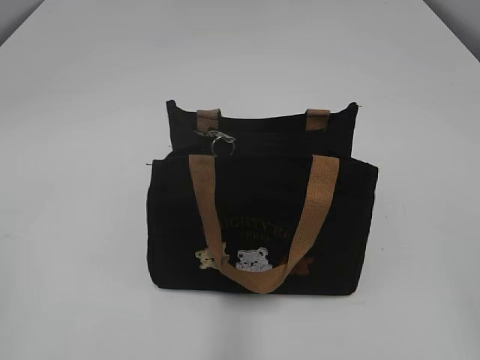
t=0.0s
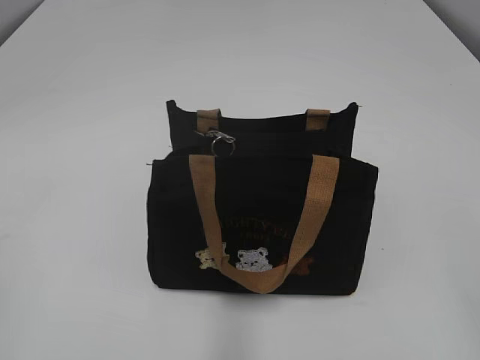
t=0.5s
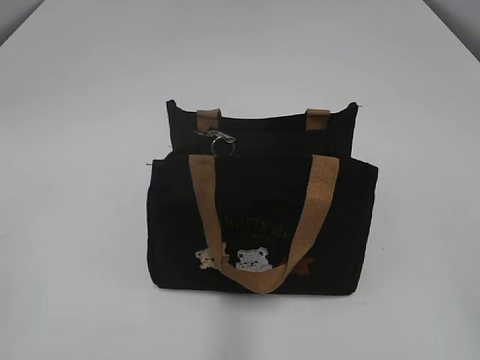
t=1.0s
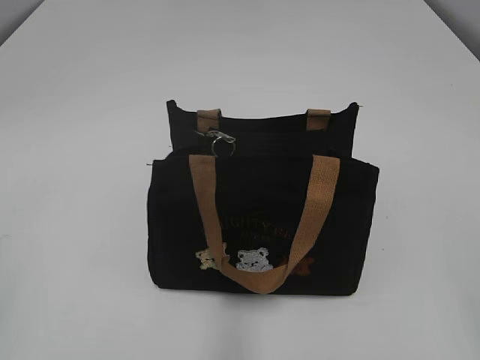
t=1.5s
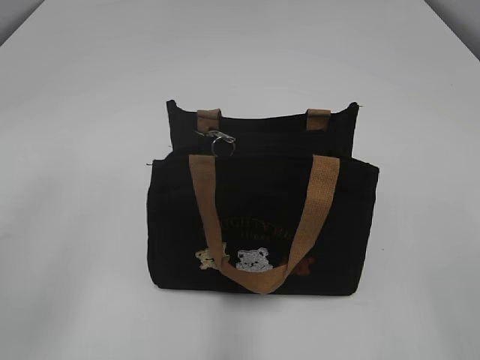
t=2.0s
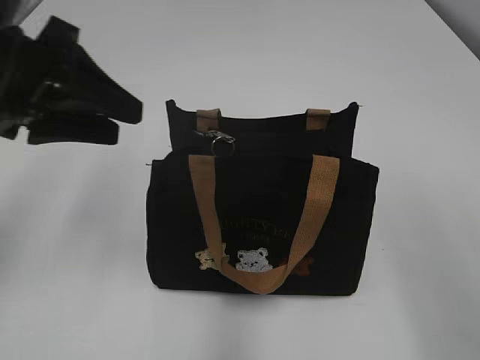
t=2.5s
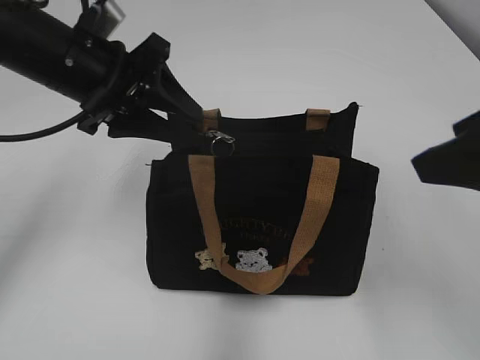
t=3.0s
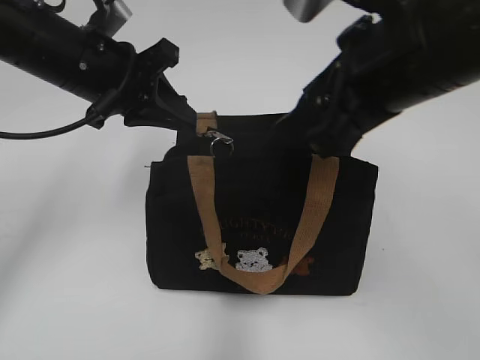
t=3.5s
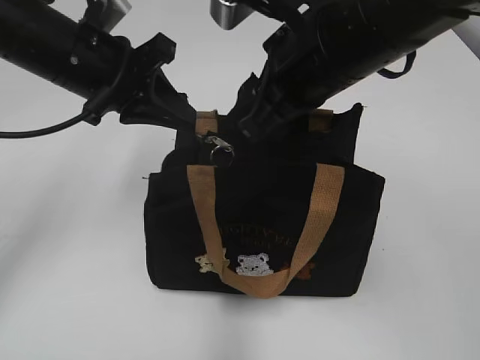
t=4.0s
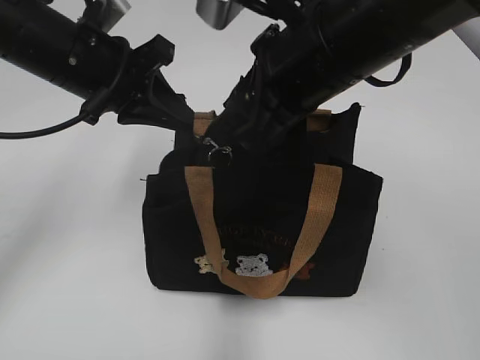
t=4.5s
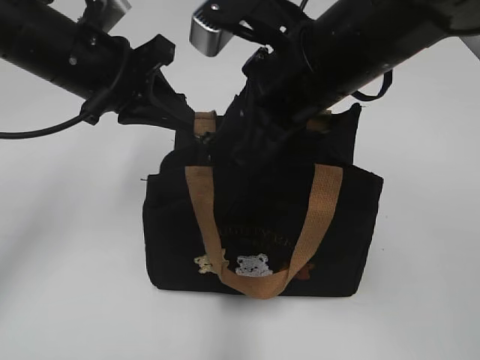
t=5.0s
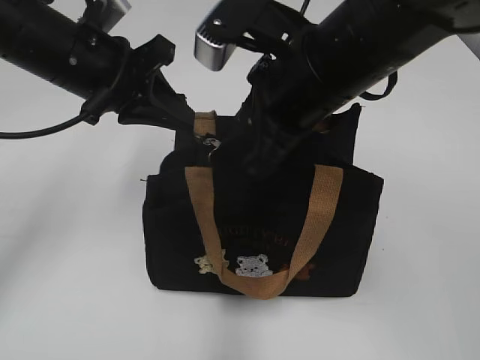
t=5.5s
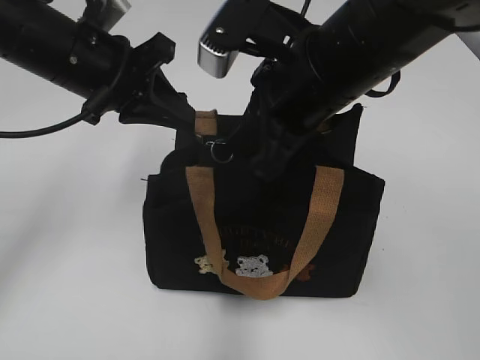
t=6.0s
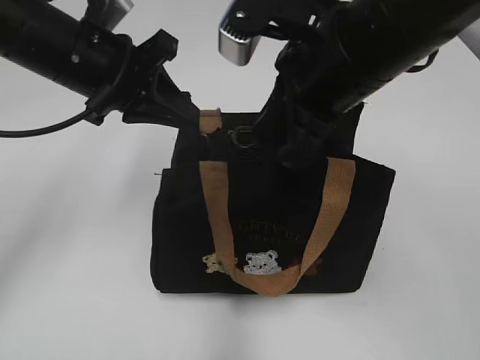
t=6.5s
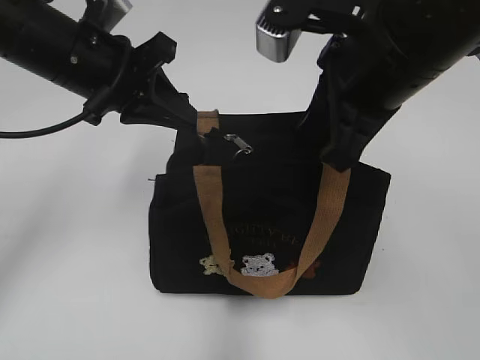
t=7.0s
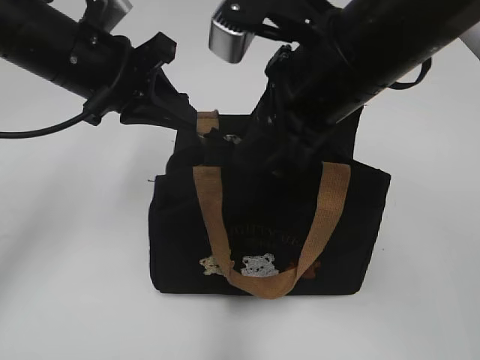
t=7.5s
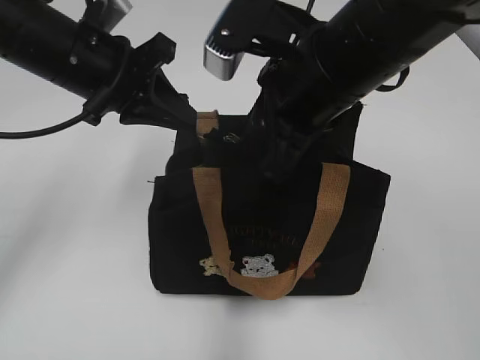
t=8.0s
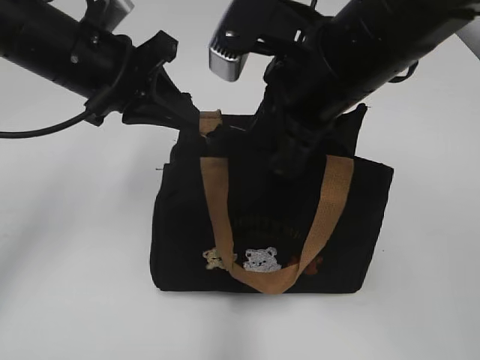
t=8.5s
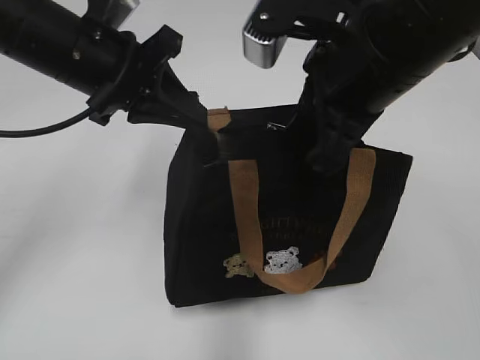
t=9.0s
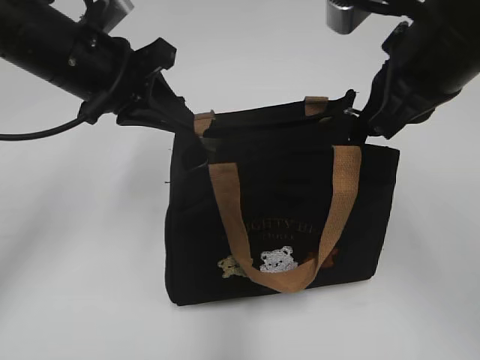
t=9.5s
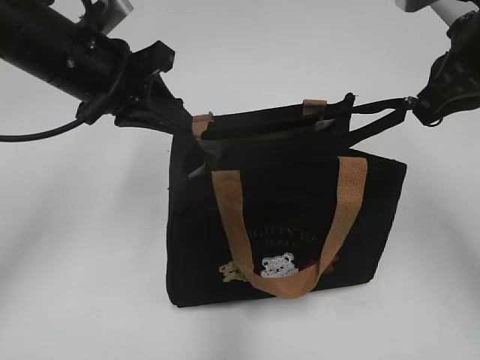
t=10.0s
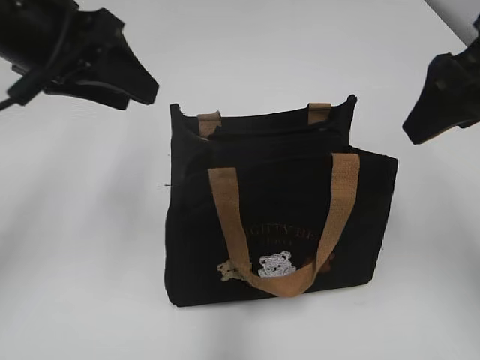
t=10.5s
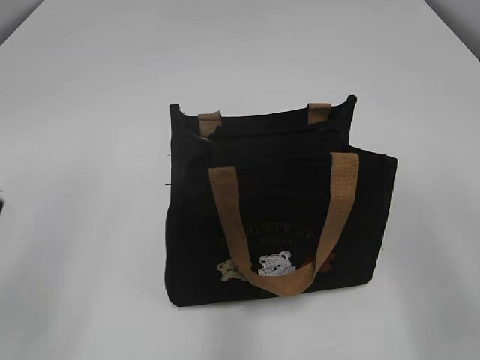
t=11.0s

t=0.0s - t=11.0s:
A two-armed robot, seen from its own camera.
Step, t=0.0s - t=10.0s: Pull open the zipper with your right hand.
t=2.0s - t=3.5s: The right gripper goes approximately 25 cm forward and to the left; the left gripper heads forward and to the right, covering approximately 25 cm, and closes.
t=3.5s - t=5.5s: The right gripper shifts approximately 5 cm to the left.
t=5.5s - t=7.5s: The right gripper closes, then opens again.
t=7.5s - t=9.0s: The right gripper closes up.
t=9.0s - t=11.0s: The left gripper moves backward and to the left, approximately 20 cm, and opens up. Meanwhile the right gripper moves to the right and backward, approximately 20 cm, and opens.

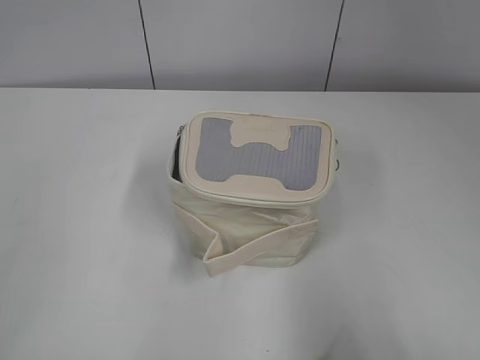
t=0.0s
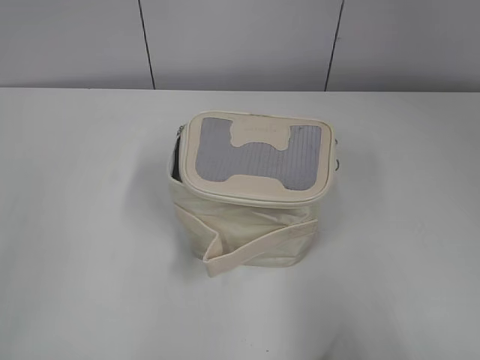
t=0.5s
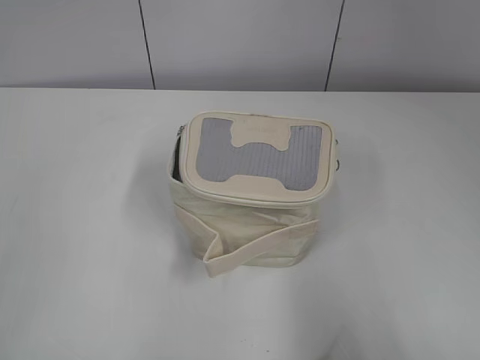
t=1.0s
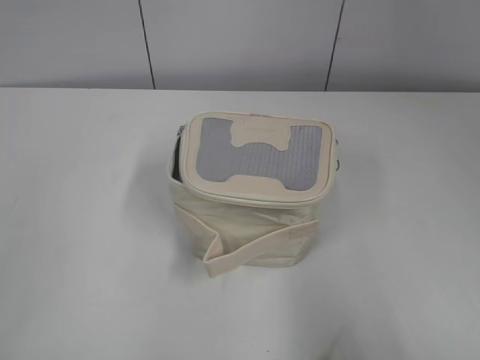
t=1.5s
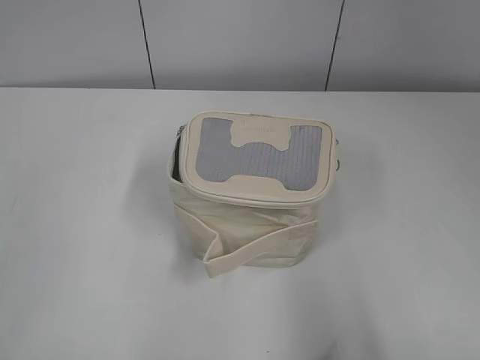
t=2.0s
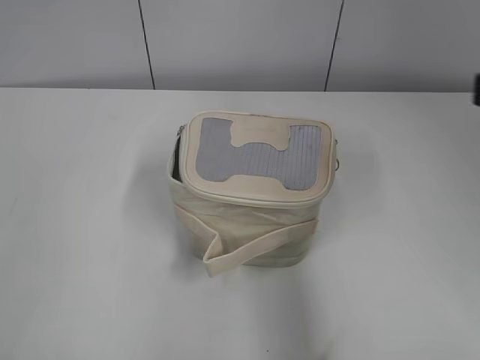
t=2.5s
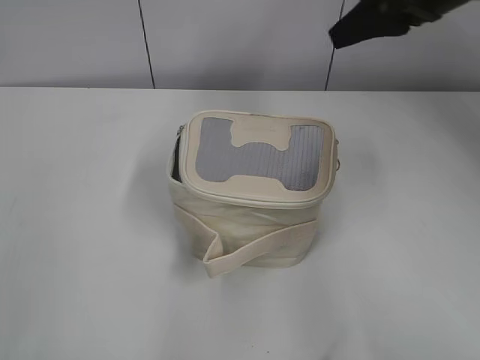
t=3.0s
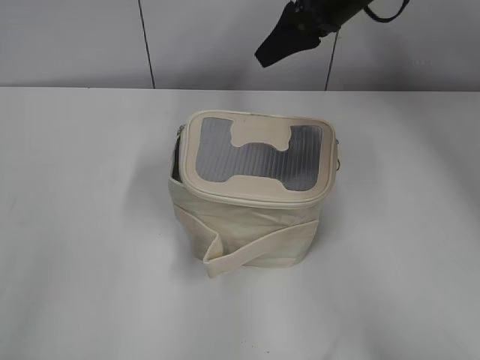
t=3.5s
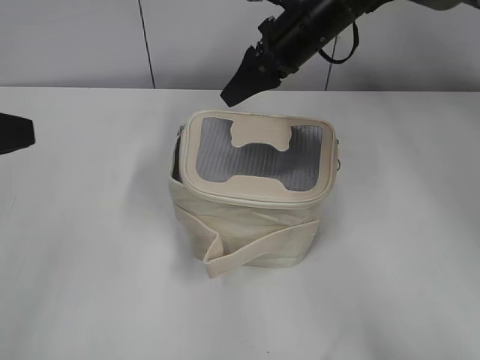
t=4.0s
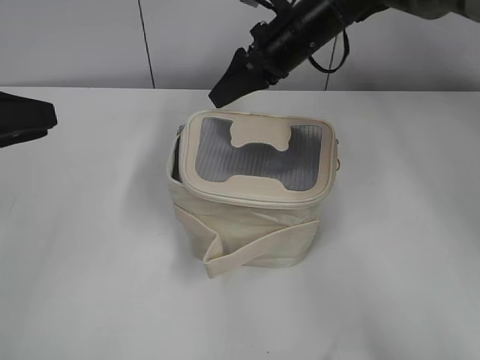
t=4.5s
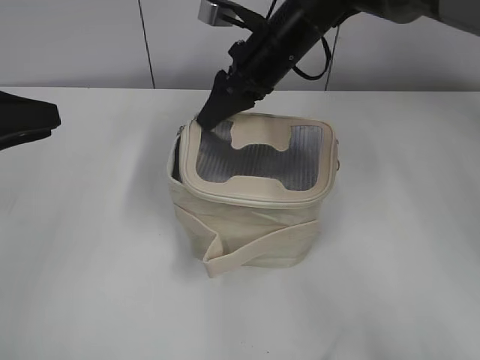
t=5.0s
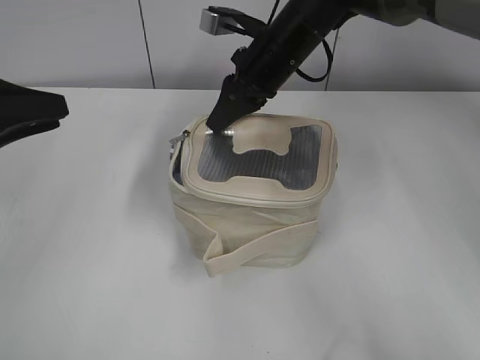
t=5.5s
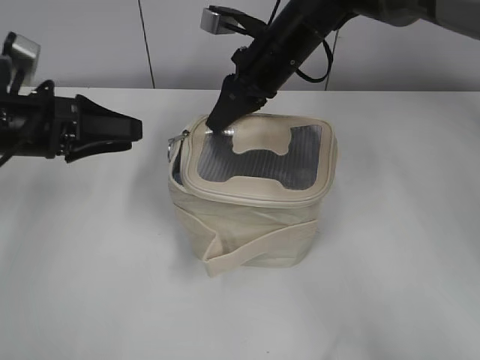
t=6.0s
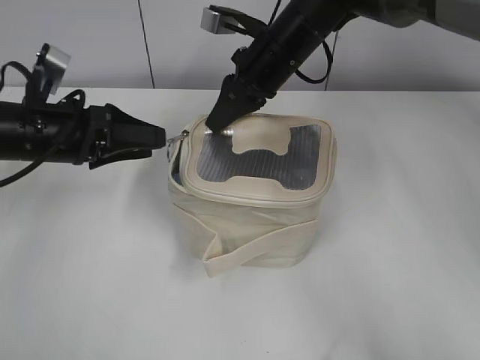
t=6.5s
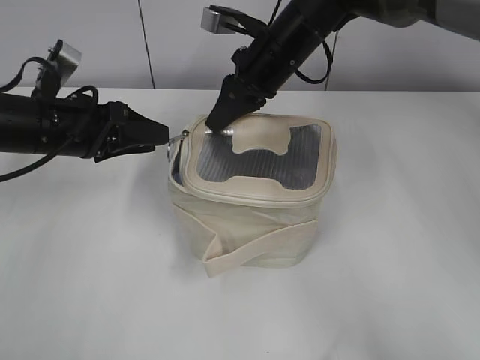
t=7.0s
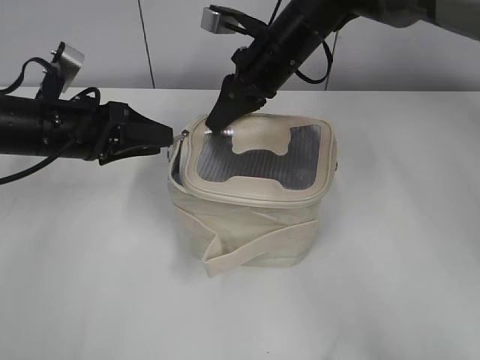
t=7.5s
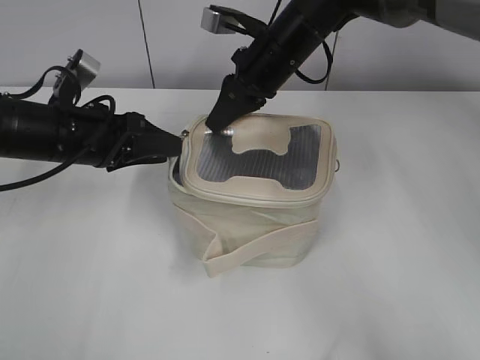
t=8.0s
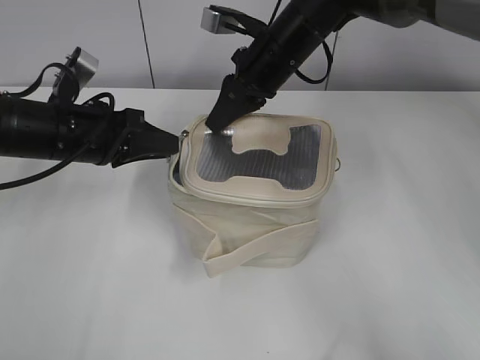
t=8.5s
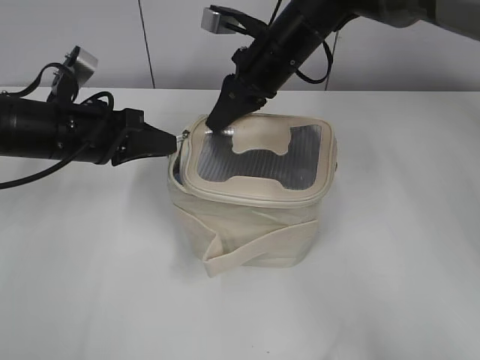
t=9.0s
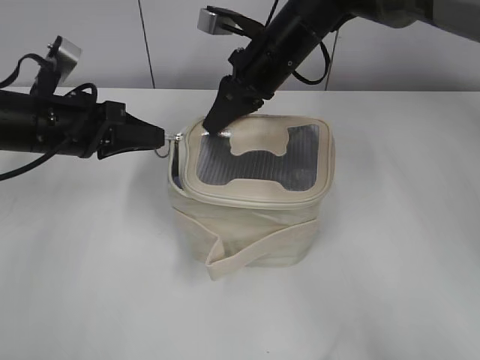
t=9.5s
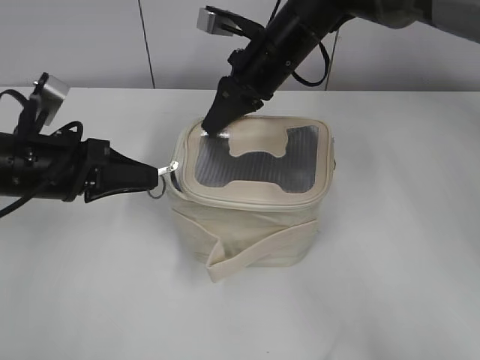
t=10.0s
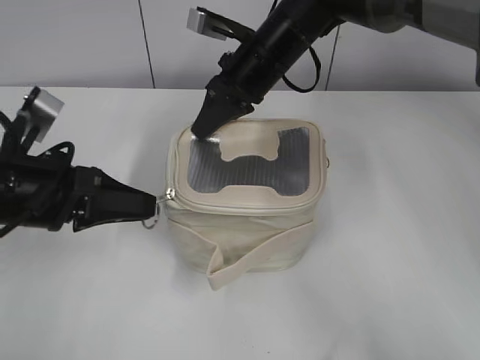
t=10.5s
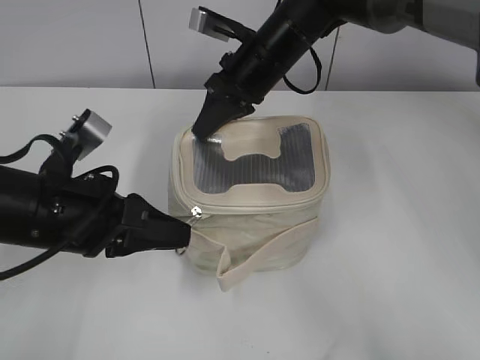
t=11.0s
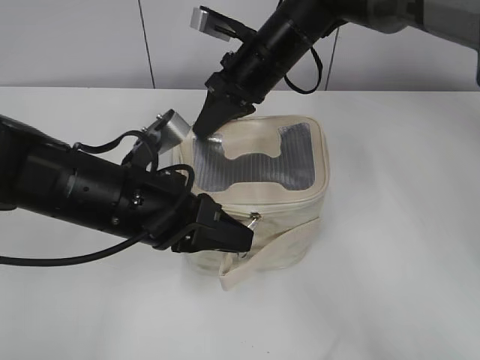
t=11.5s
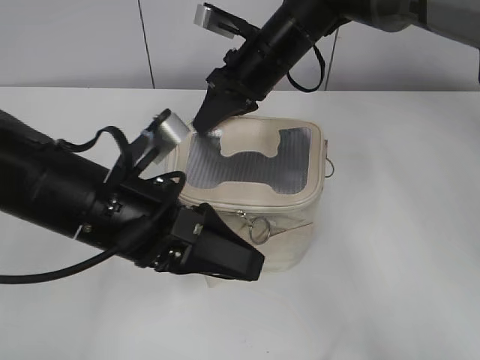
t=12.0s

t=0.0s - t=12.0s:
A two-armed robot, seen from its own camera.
Step, t=0.0s - t=11.5s: Zip up the bag with your left hand.
t=2.0s - t=4.0s: The left gripper is displaced forward by roughly 20 cm. Meanwhile the right gripper heads forward and to the left, covering some 50 cm.
t=4.0s - t=6.0s: The left gripper moves forward and downward, roughly 15 cm, and opens up. The right gripper closes its fingers.
t=6.0s - t=8.0s: The left gripper shifts roughly 5 cm to the right.
t=8.0s - t=10.0s: The left gripper closes.
t=10.0s - t=12.0s: The left gripper moves to the right and backward, roughly 10 cm, and opens.

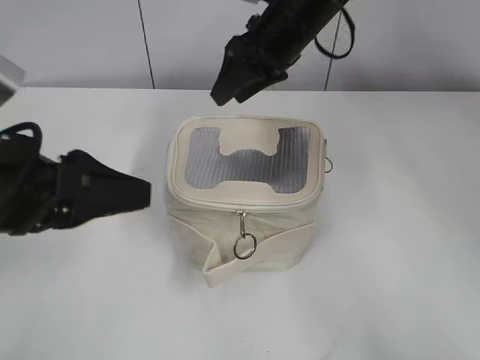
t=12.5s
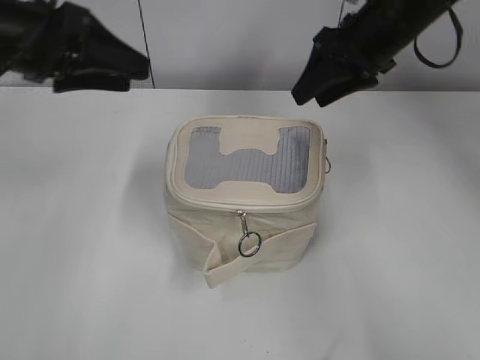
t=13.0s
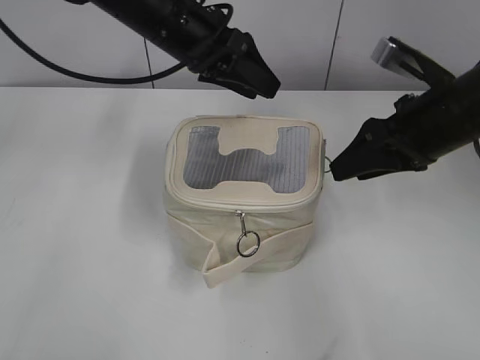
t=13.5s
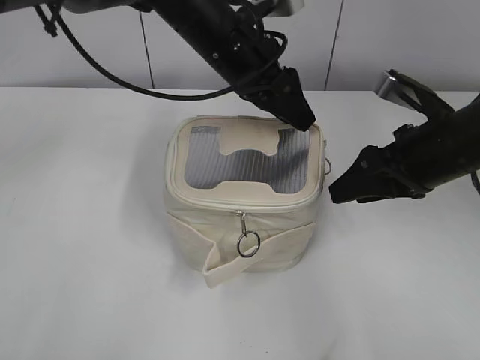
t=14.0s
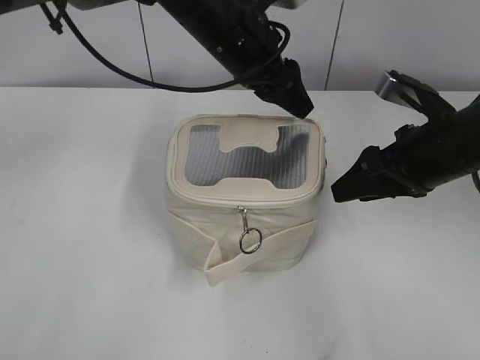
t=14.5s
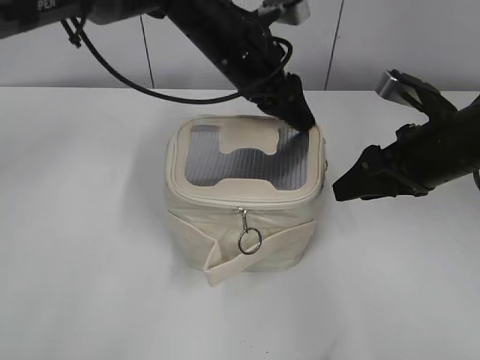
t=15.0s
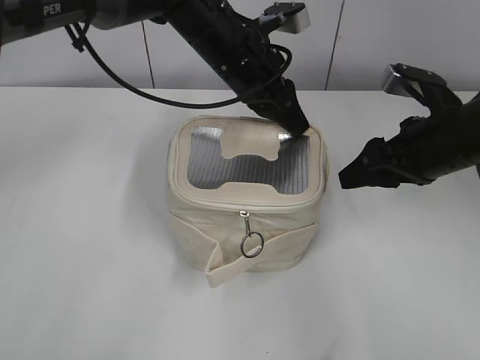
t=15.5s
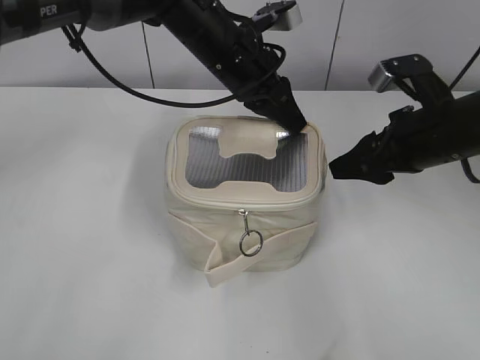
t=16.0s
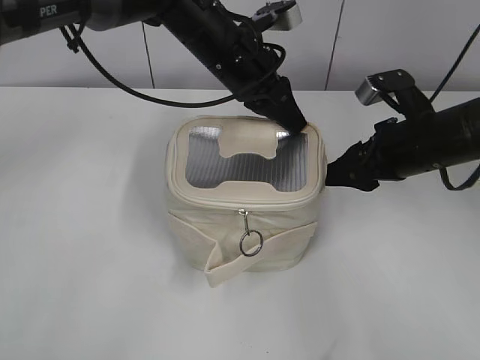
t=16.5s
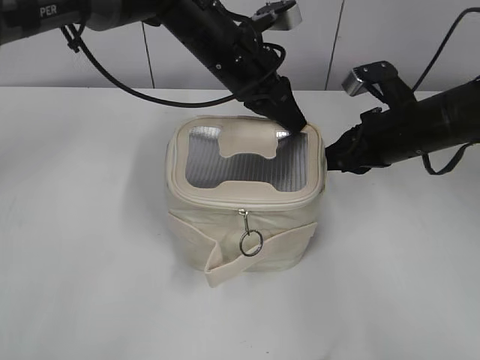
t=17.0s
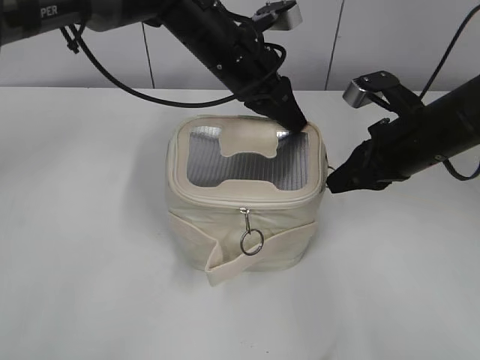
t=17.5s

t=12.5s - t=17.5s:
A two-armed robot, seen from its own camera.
t=12.5s - t=15.0s: The right gripper goes some 20 cm to the right and backward. Meanwhile the left gripper heads forward and to the right, covering roughly 30 cm.
t=15.0s - t=17.5s: The right gripper closes up; the left gripper closes up.
